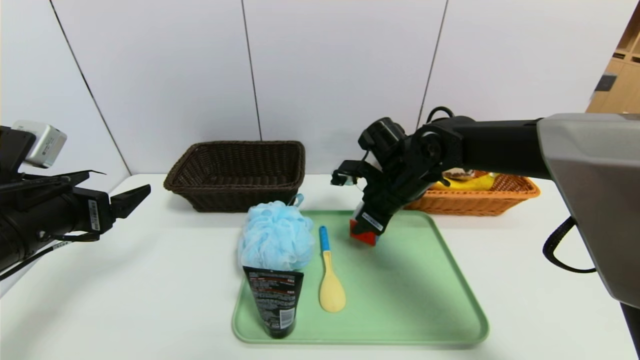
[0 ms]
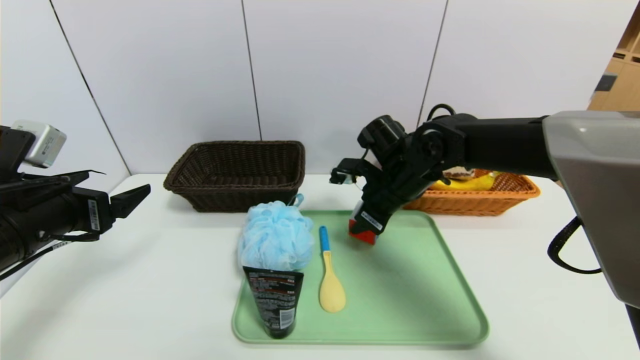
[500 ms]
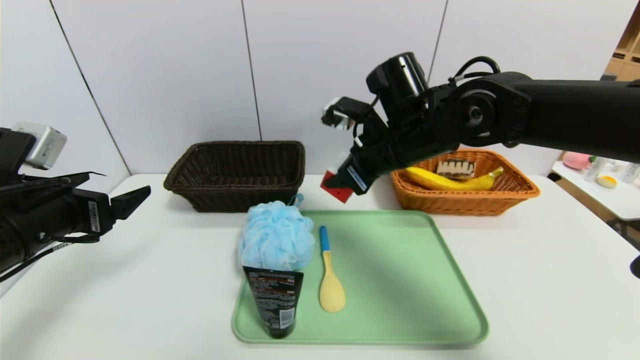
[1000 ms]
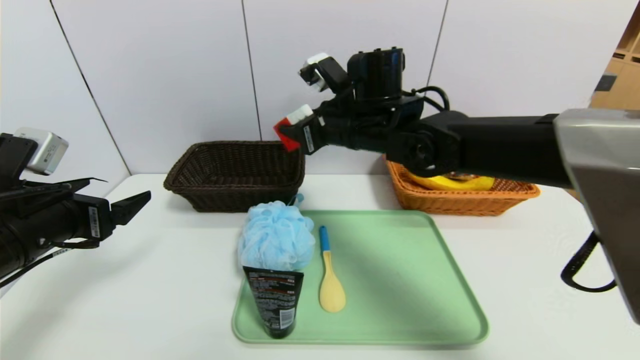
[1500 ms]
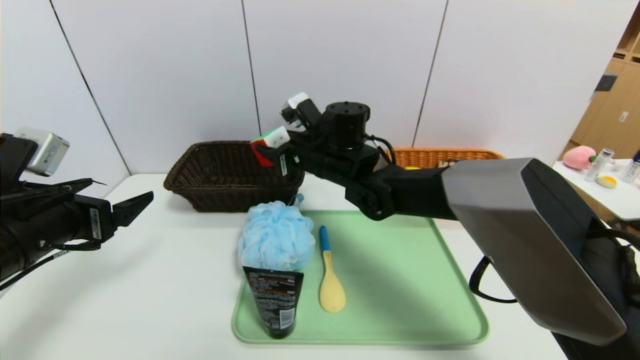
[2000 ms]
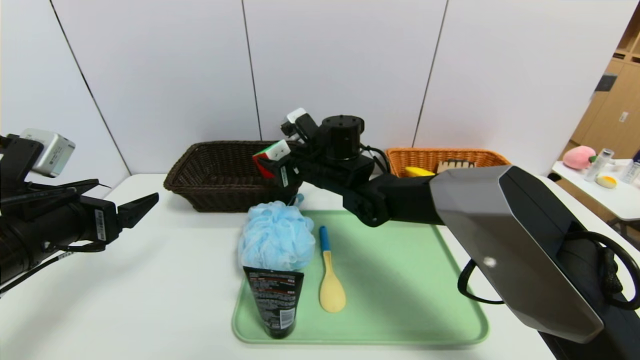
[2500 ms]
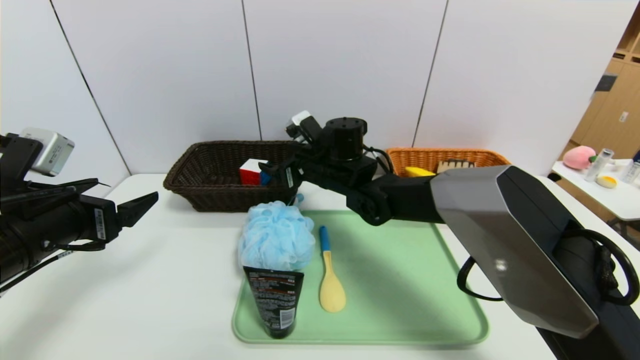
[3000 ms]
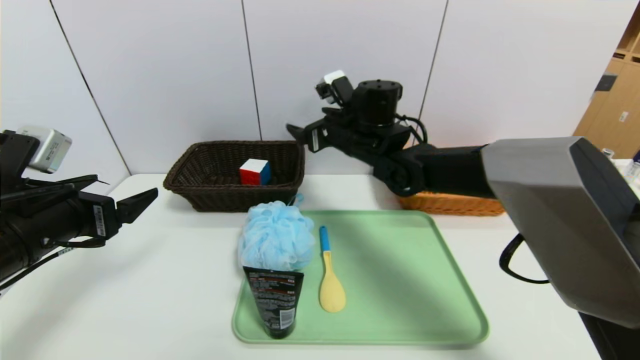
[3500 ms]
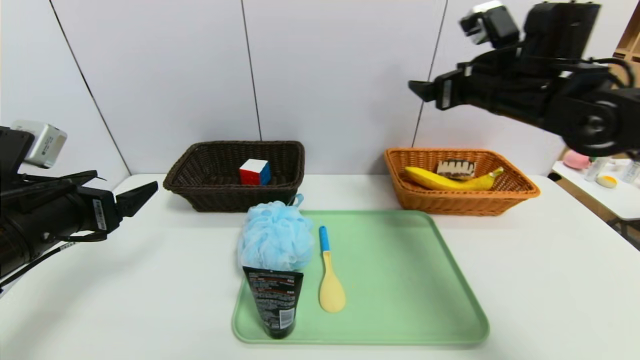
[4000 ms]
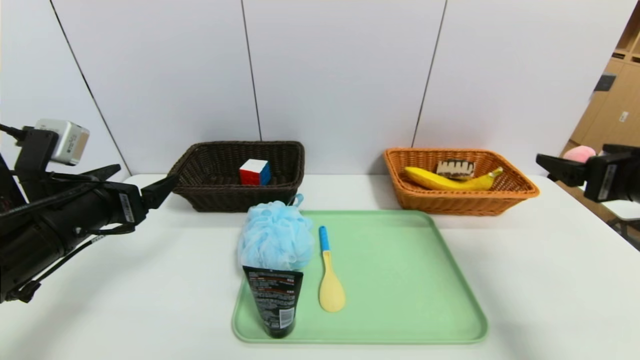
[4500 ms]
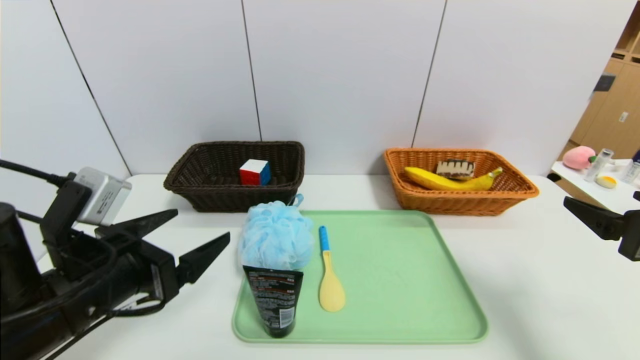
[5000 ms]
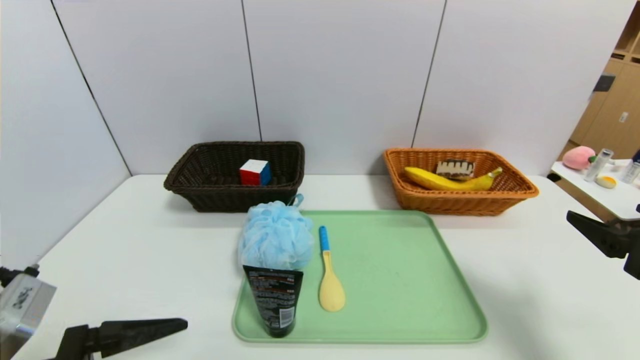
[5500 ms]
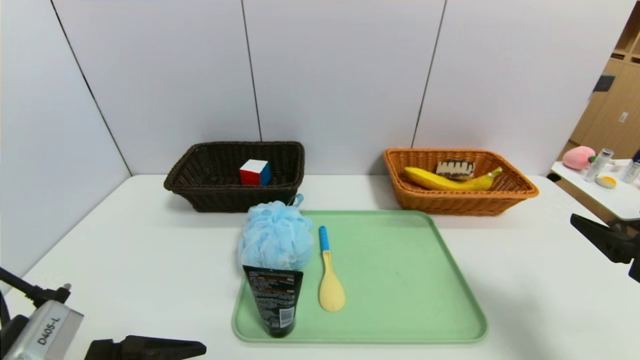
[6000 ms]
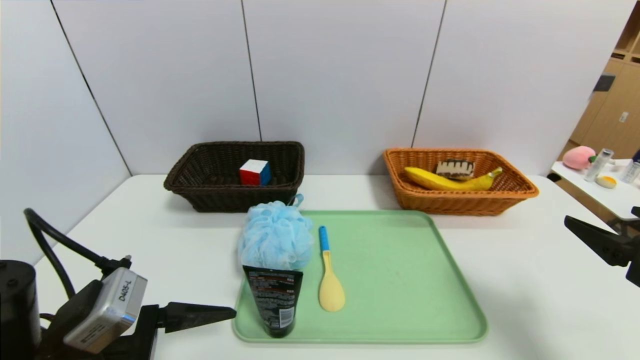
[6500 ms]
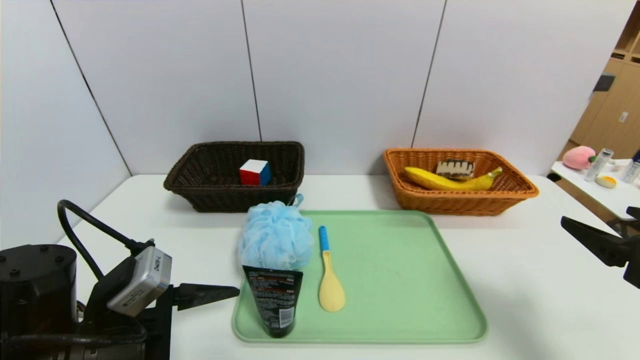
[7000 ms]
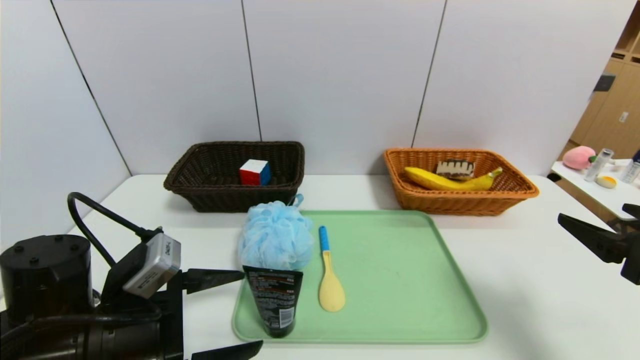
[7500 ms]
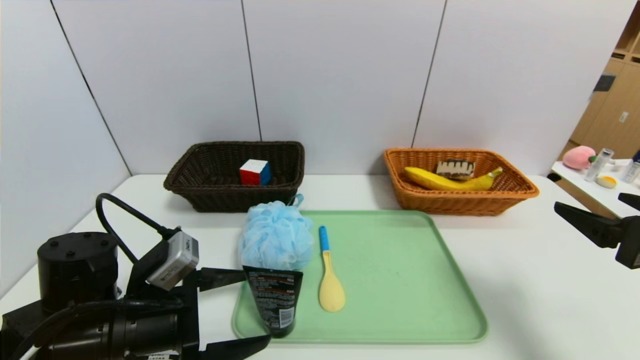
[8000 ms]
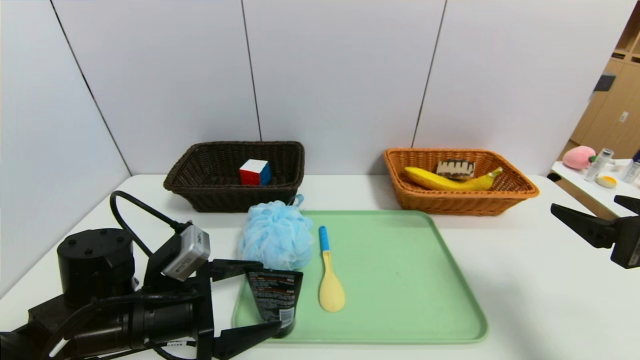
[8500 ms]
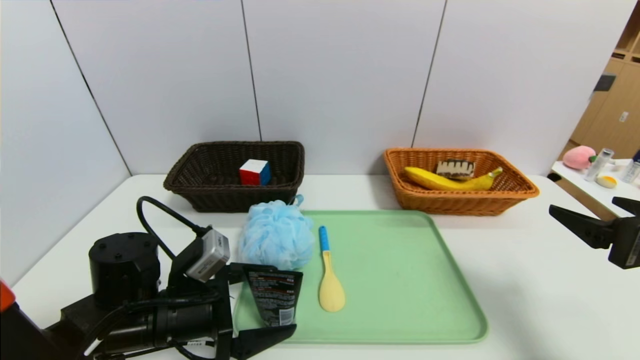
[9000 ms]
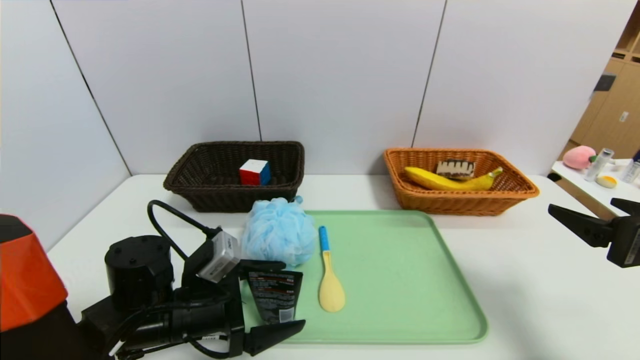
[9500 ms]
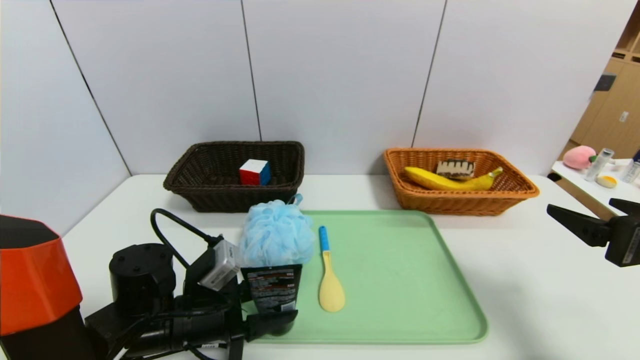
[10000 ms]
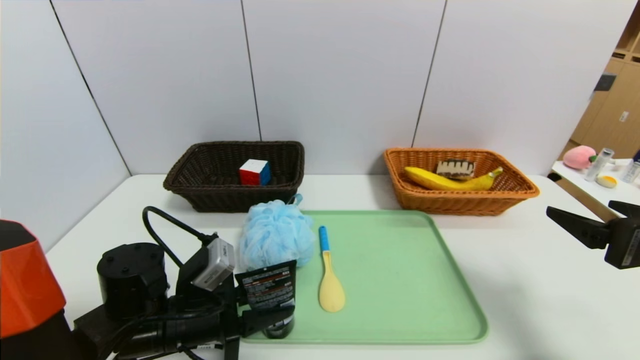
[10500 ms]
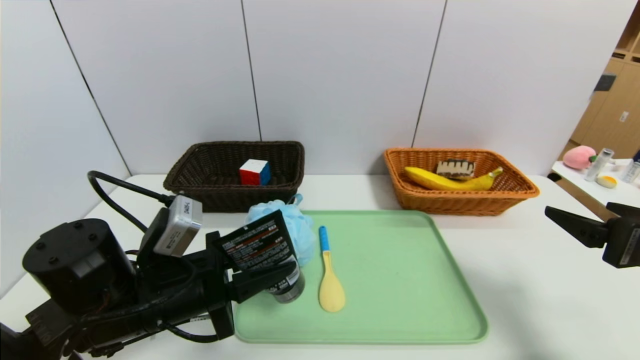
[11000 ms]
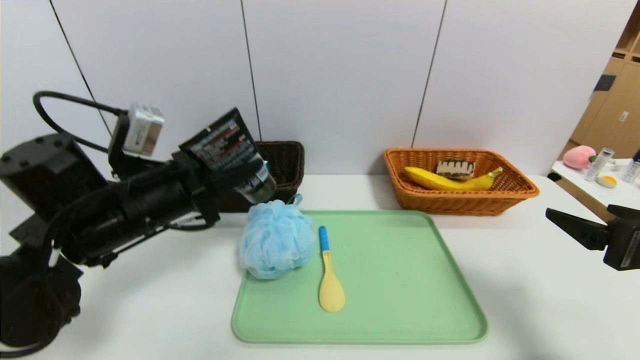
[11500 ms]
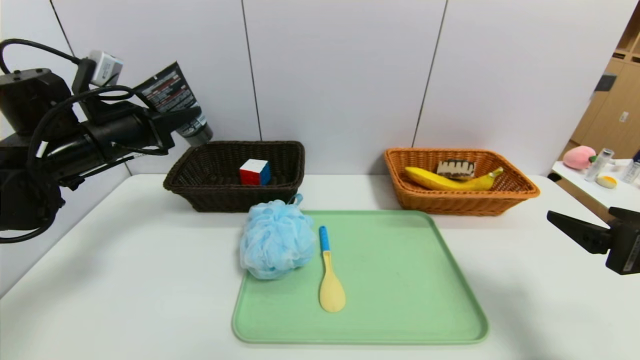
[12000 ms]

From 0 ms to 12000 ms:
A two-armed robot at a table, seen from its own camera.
Task of the whole recording: place the food in the right basket with the right gripper, and place the non food items in the left basket with the left gripper.
From 0 ms to 2000 ms: The right gripper moves to the left, approximately 10 cm.
From 2000 ms to 4000 ms: The right gripper moves to the right and upward, about 25 cm, and opens up.
From 4000 ms to 6000 ms: The left gripper is displaced backward, to the right and downward by about 15 cm, while the right gripper heads backward, downward and to the right, covering about 25 cm.
From 6000 ms to 8000 ms: The left gripper travels forward by some 10 cm.
From 8000 ms to 10000 ms: The left gripper shifts by roughly 5 cm, and closes up.
From 10000 ms to 12000 ms: The left gripper is displaced upward, forward and to the left by about 25 cm.

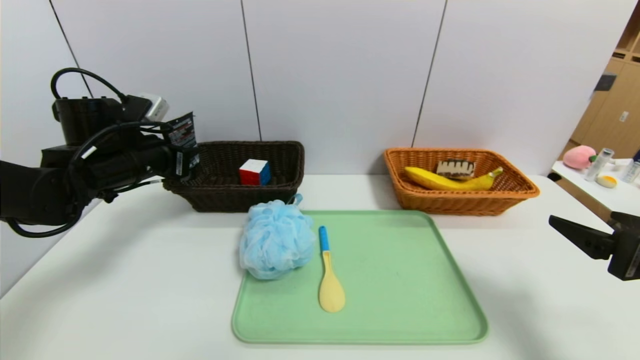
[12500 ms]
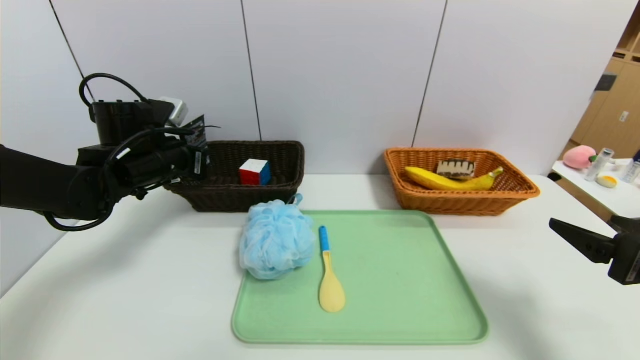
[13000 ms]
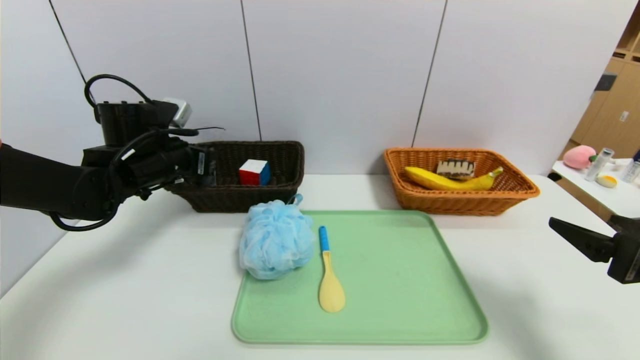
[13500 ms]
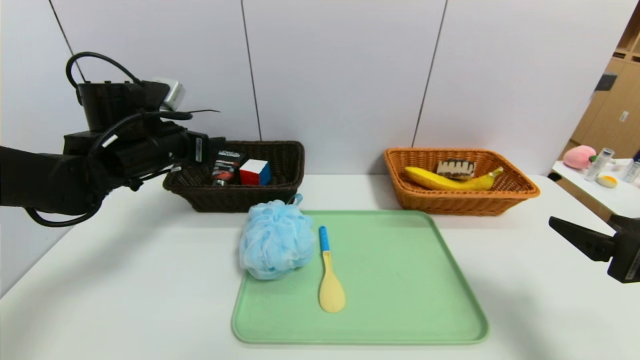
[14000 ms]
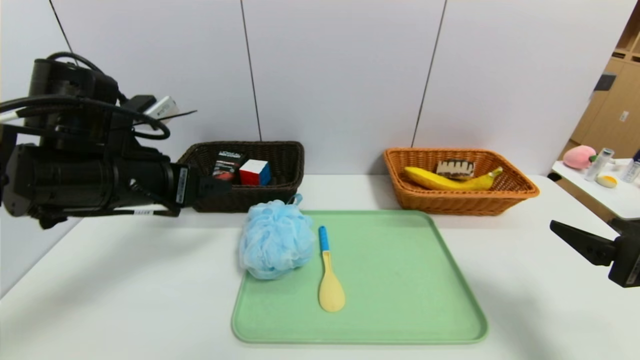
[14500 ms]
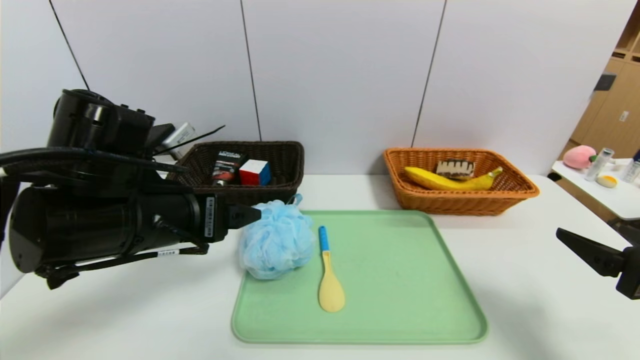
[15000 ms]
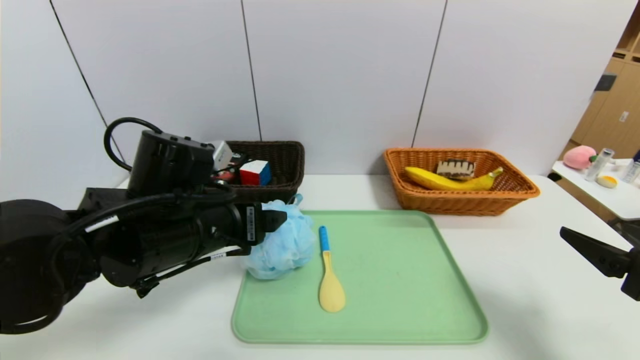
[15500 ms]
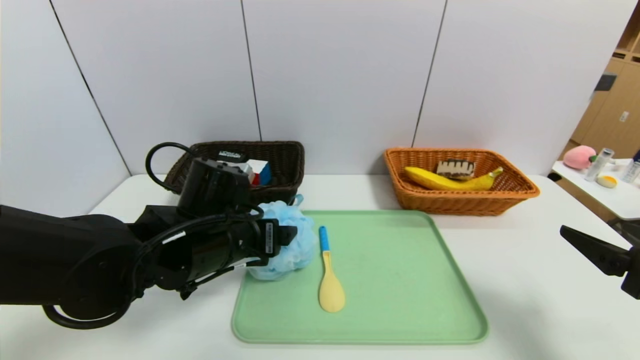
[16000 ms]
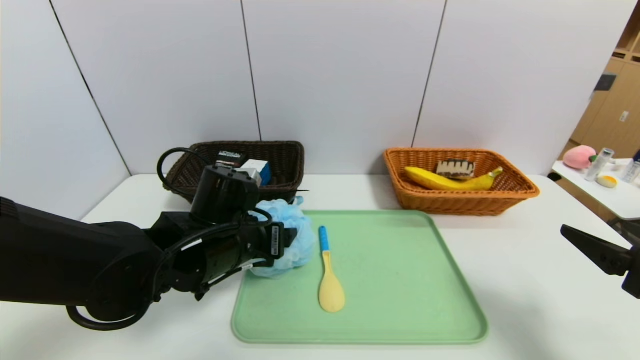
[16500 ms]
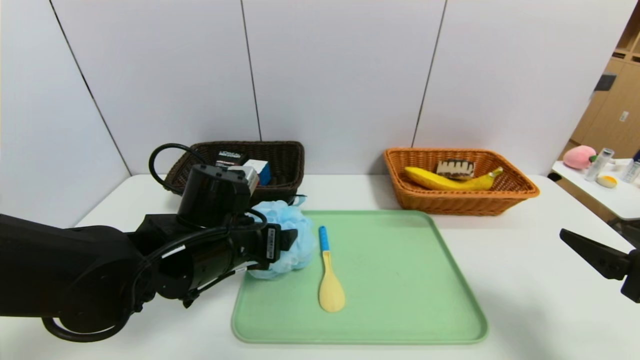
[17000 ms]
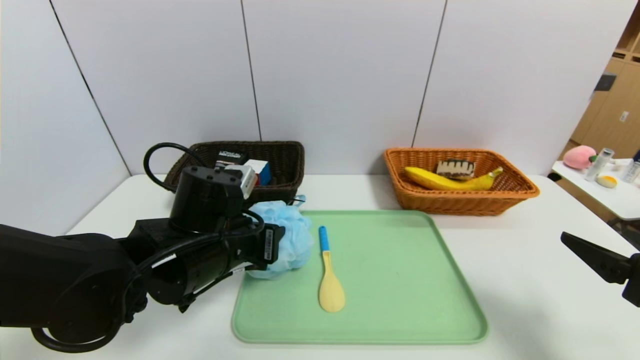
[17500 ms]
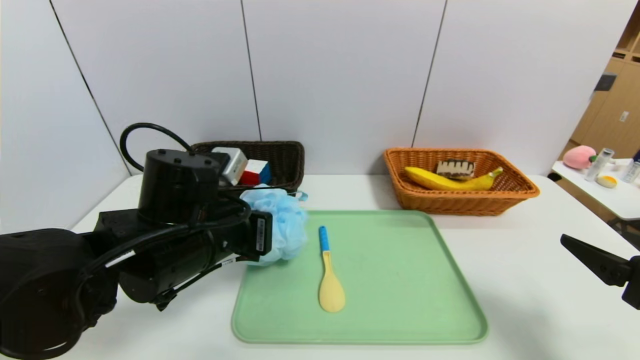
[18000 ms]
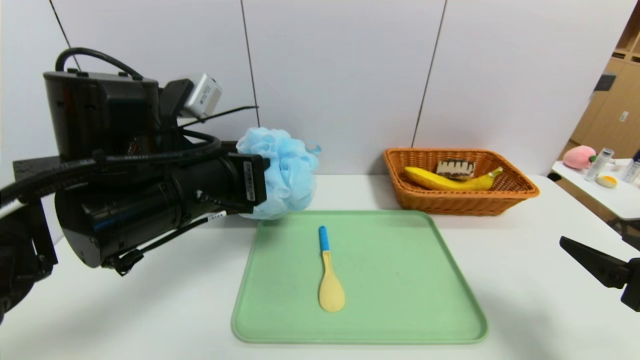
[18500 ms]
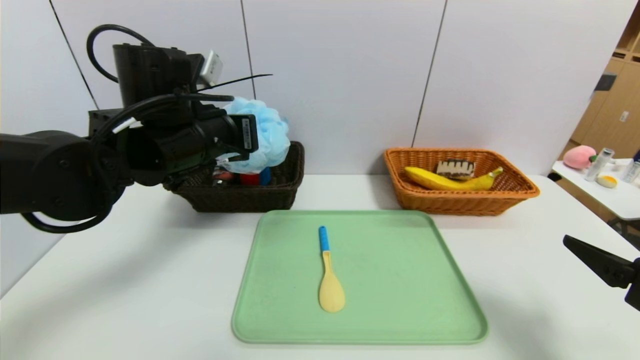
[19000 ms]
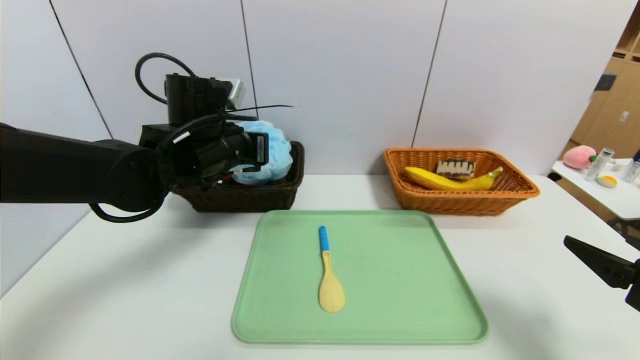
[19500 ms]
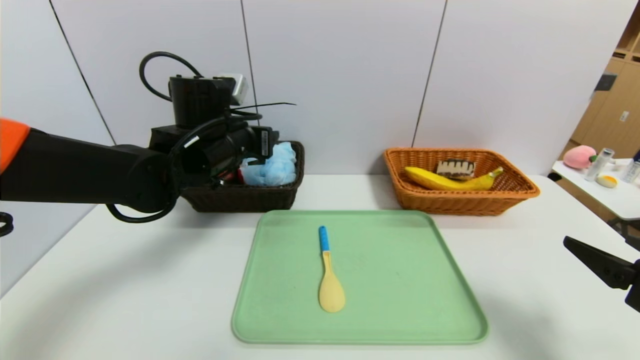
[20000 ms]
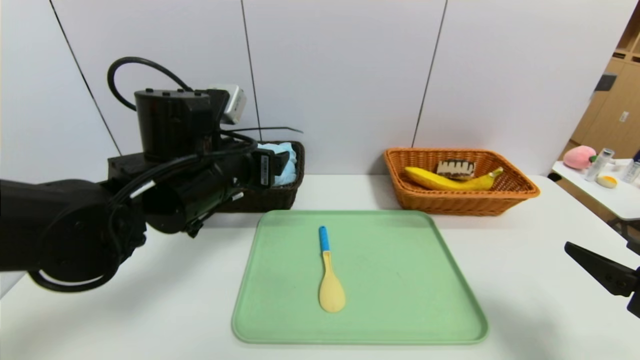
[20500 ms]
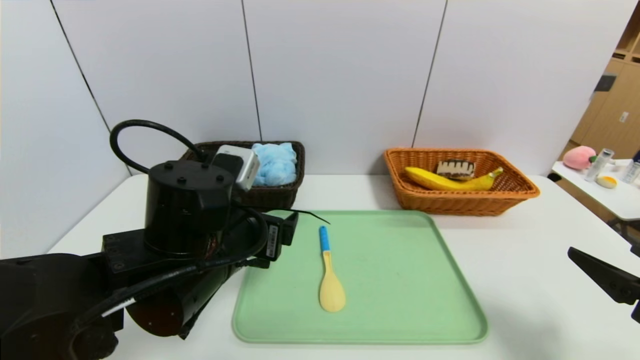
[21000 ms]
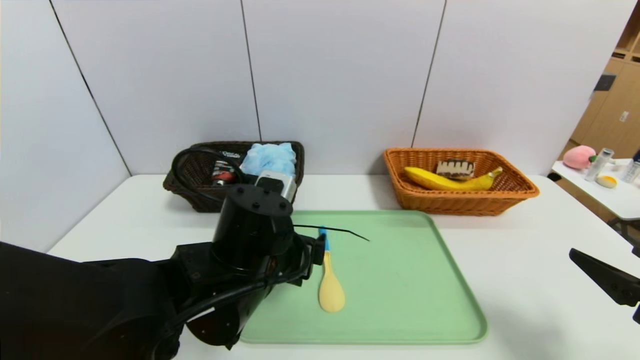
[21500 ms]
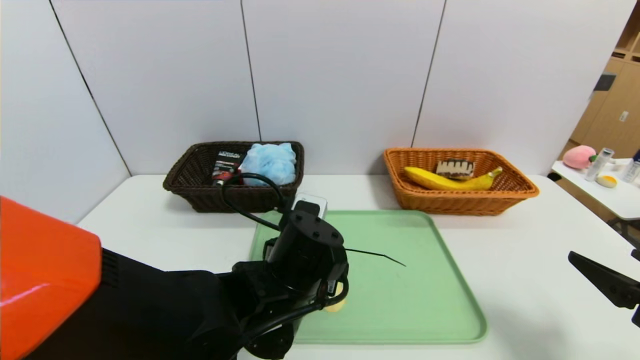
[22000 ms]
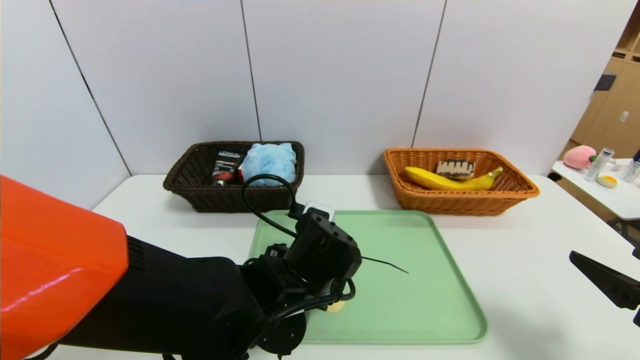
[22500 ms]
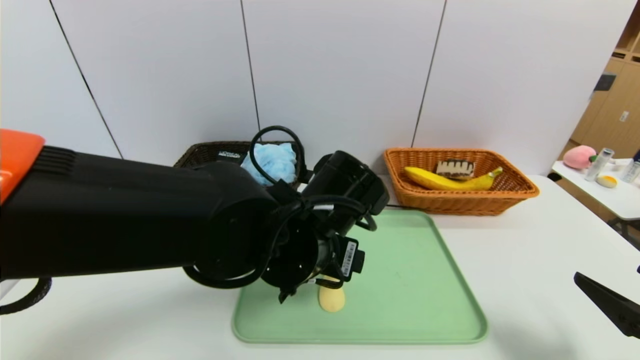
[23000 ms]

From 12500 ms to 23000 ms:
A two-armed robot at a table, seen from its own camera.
Task of the whole recording: place the food in the right basket with the right gripper, and place the non food items in the left basket with the left gripper.
Step, from 14500 ms to 19500 ms: Grasp the shower sphere and put it in the left basket.
From 12500 ms to 14500 ms: The left gripper heads backward and to the right, covering about 15 cm, and opens up.
From 14500 ms to 16500 ms: The left gripper is displaced downward and to the right by roughly 15 cm.
From 16500 ms to 19000 ms: The left gripper heads upward, covering about 10 cm, and closes its fingers.
From 19000 ms to 21000 ms: The left gripper is displaced backward and downward by approximately 10 cm, and opens its fingers.
From 21000 ms to 23000 ms: The left gripper shifts approximately 10 cm to the right.
